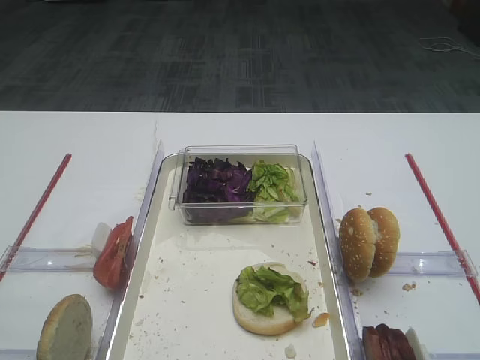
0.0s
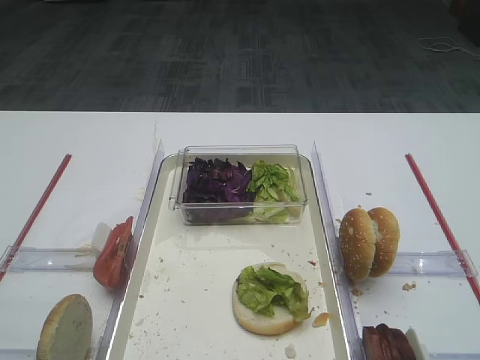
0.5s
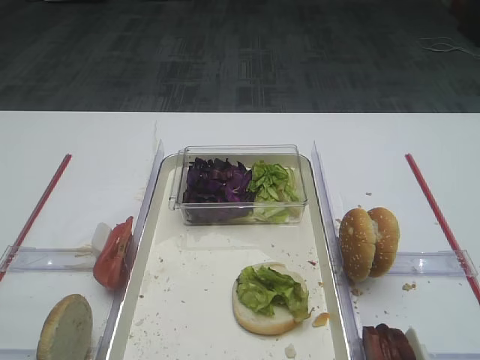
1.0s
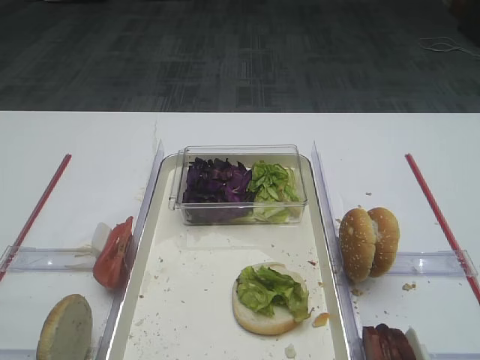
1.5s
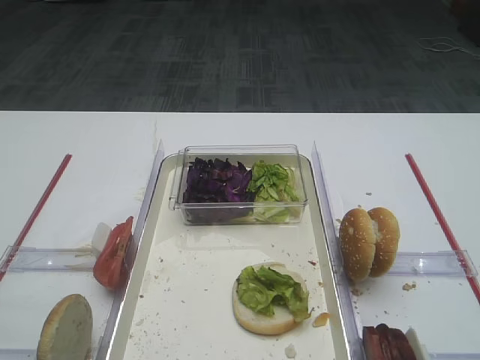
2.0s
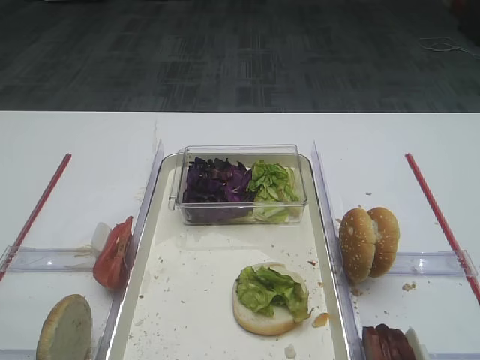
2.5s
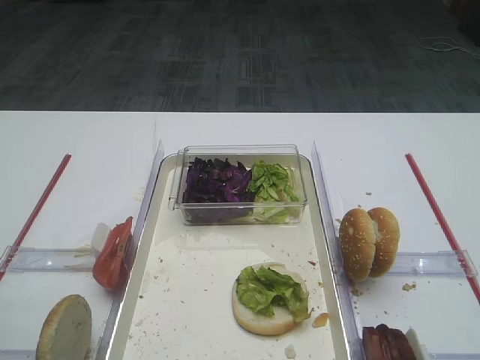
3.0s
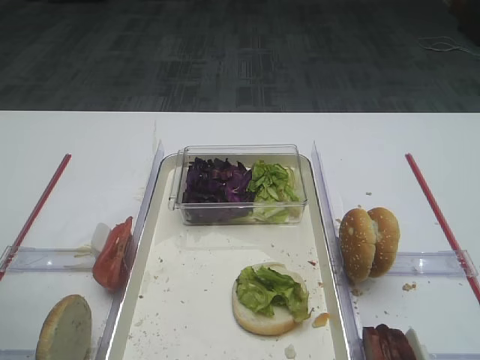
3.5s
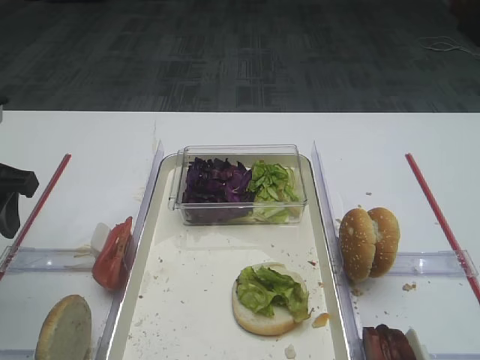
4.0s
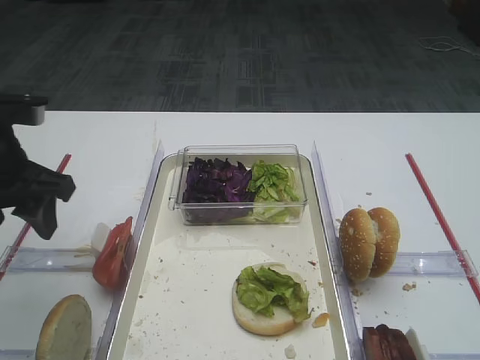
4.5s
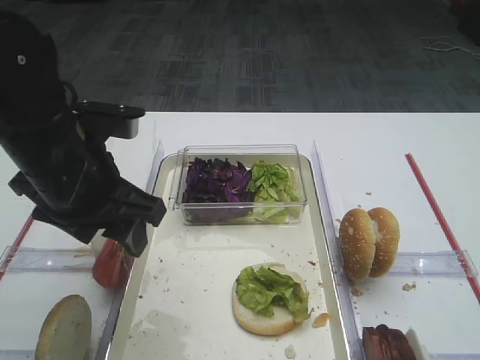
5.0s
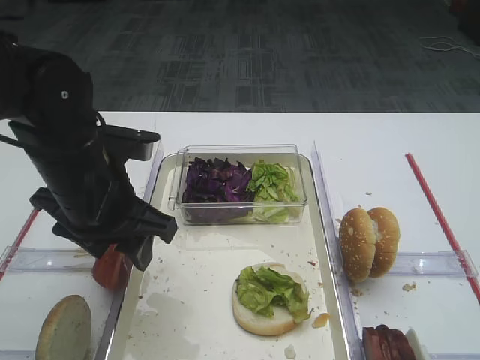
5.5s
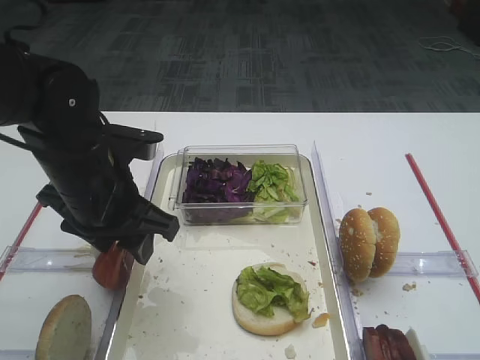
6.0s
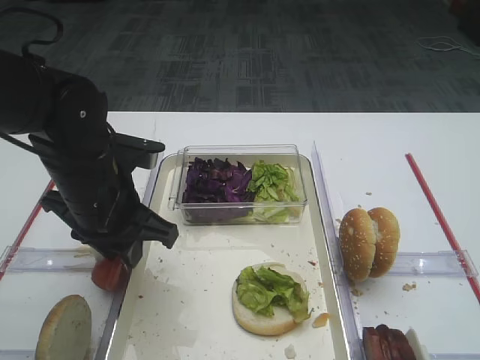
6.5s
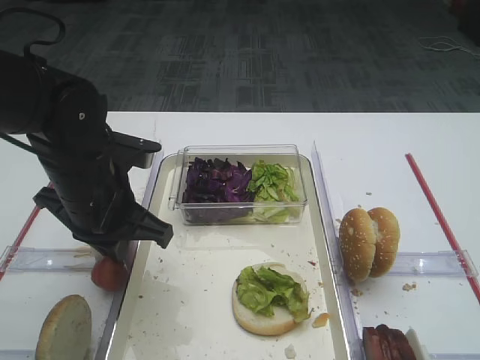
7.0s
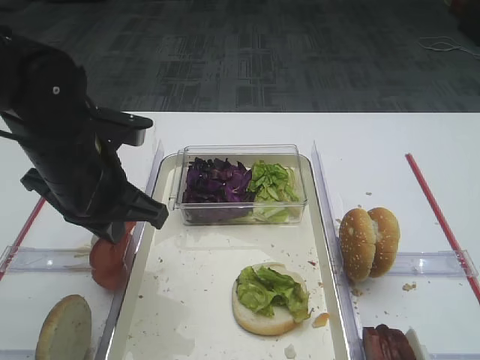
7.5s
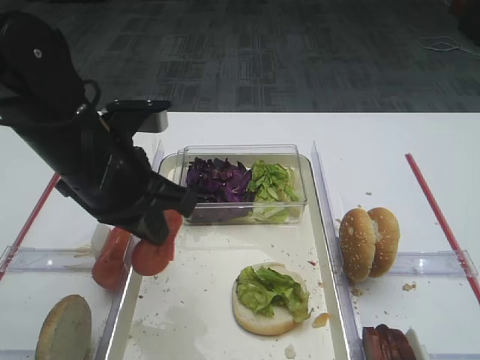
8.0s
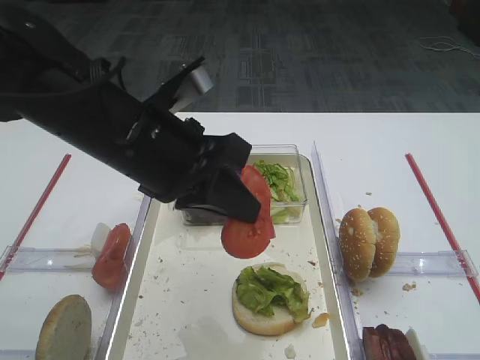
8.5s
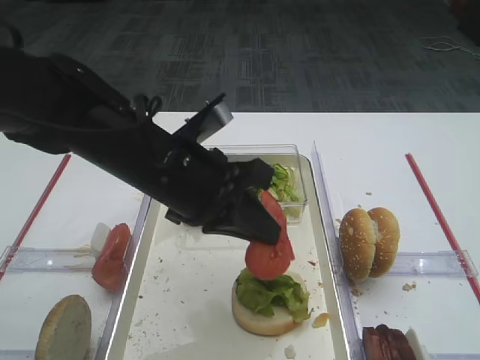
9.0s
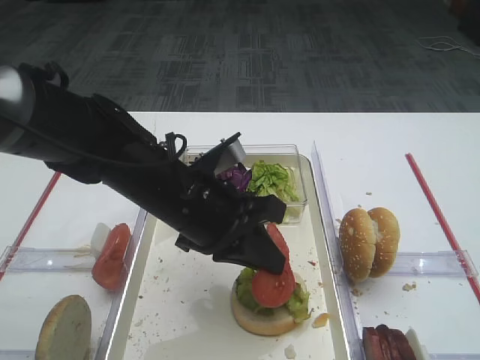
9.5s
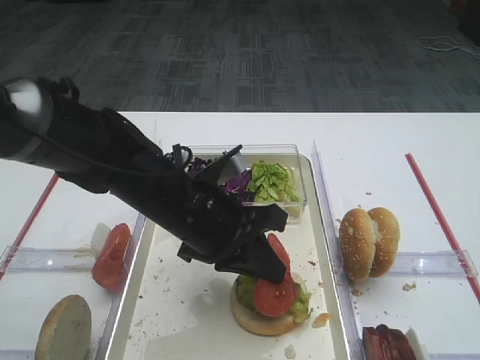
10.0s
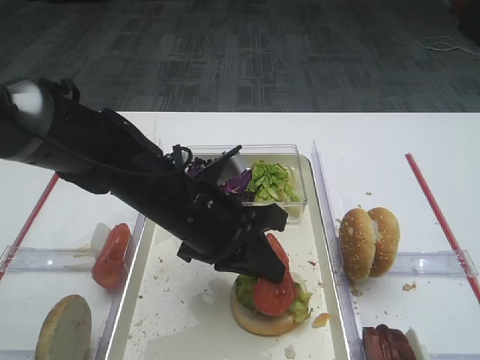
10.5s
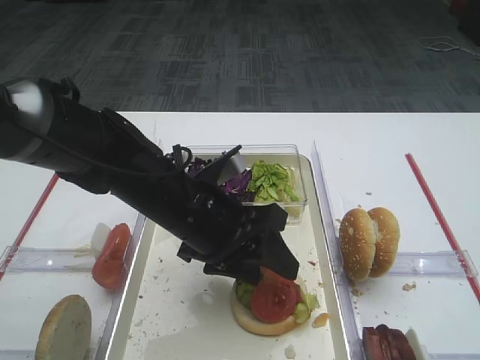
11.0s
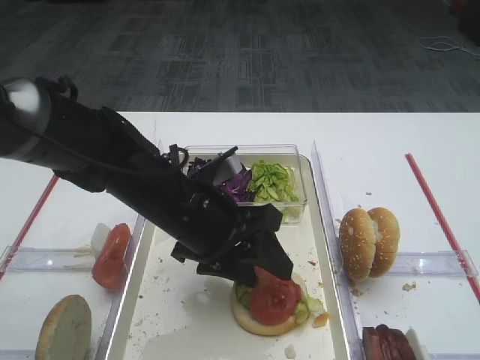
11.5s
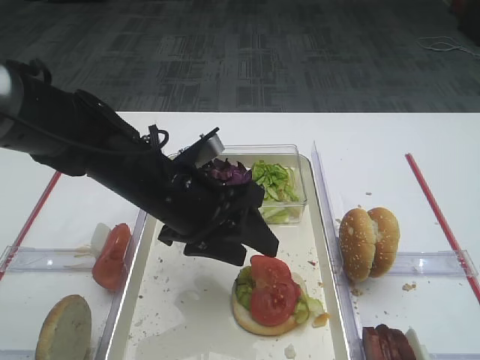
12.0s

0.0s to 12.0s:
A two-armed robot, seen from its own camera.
Step, 0.0s to 7.5s: Pick up the tomato slice with the left gripper.
Step, 8.0s to 12.0s: Place the tomato slice on the lettuce leaf with the left gripper.
2.0s to 4.0s: The left gripper moves forward, approximately 30 cm.
4.0s to 6.0s: The left gripper travels to the right by about 15 cm.
6.0s to 8.0s: The left gripper closes.
8.0s to 10.0s: The left gripper moves to the right and downward, approximately 10 cm.
10.0s to 12.0s: The left gripper opens.

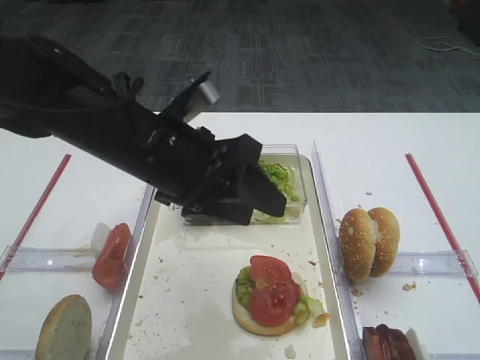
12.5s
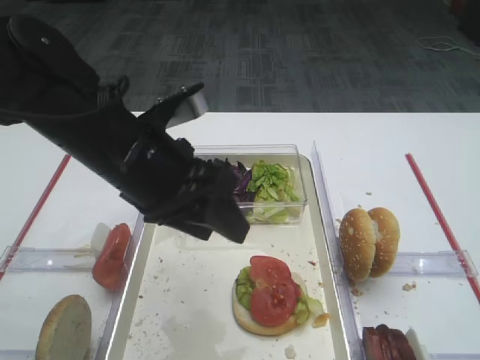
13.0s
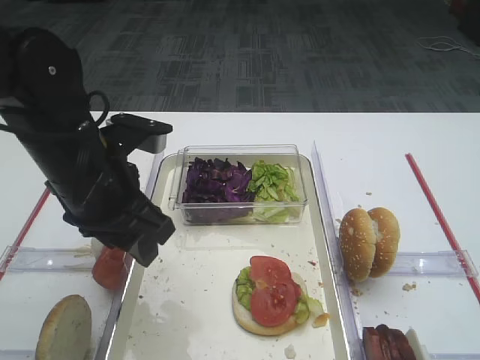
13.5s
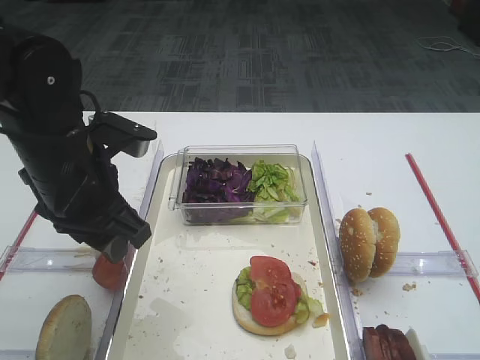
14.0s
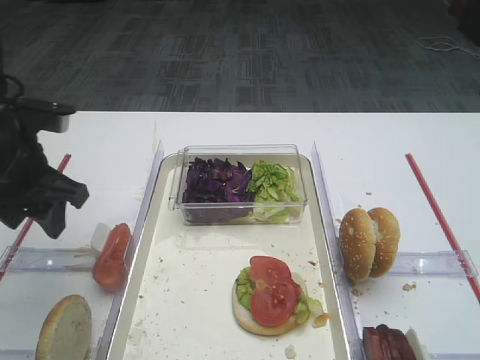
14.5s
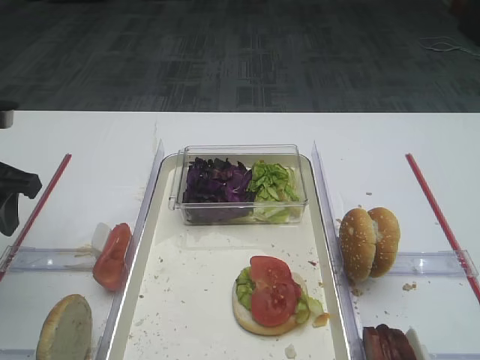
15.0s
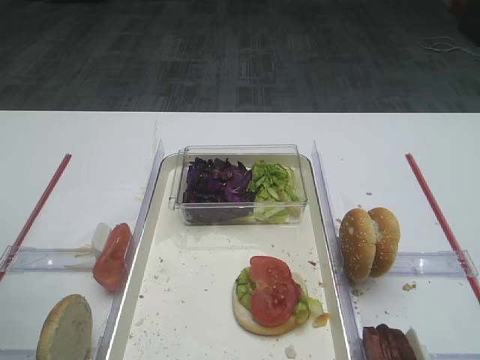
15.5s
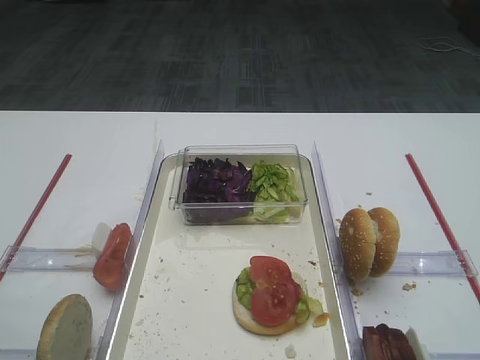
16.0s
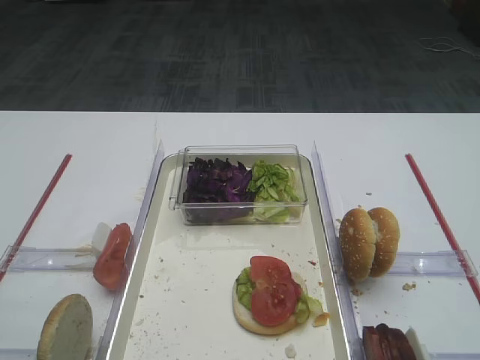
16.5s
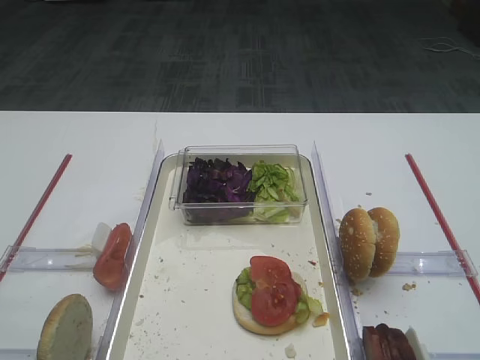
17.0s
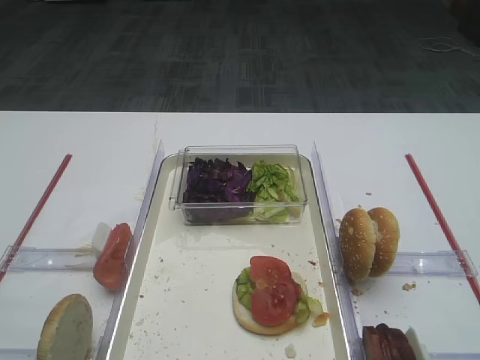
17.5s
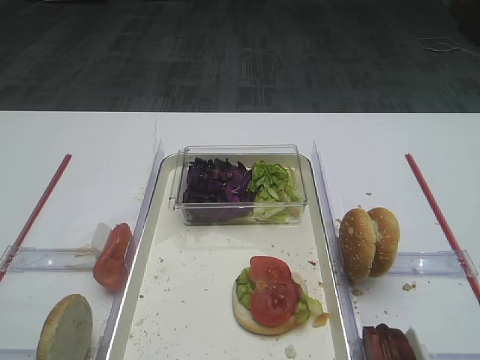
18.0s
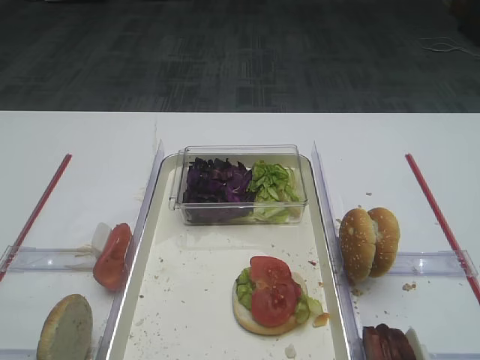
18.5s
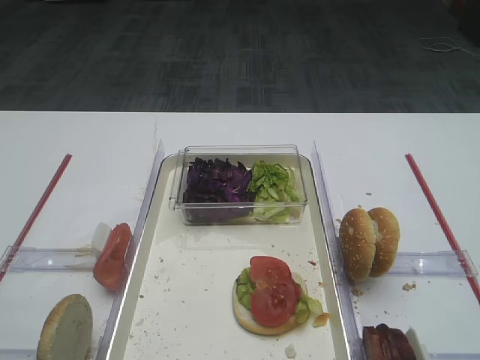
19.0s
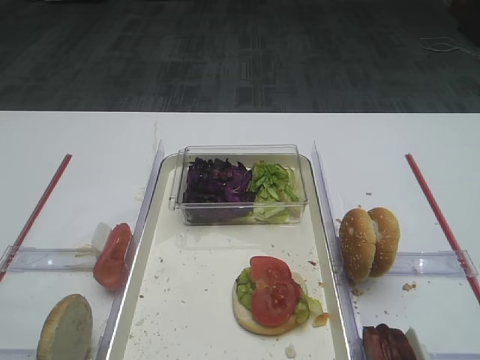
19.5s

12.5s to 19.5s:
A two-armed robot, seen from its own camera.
12.5s to 14.5s: The left gripper goes about 15 cm to the left.
14.5s to 16.0s: The left gripper goes about 20 cm backward.
17.5s to 19.5s: Neither gripper changes place.

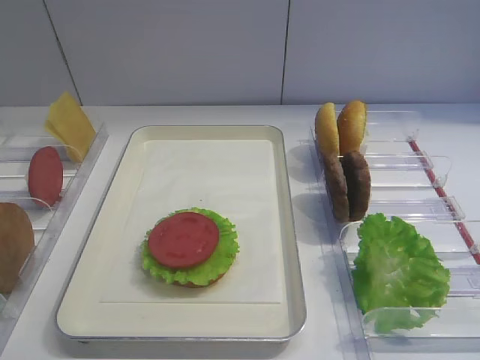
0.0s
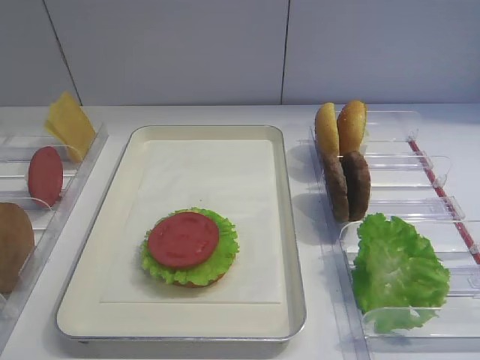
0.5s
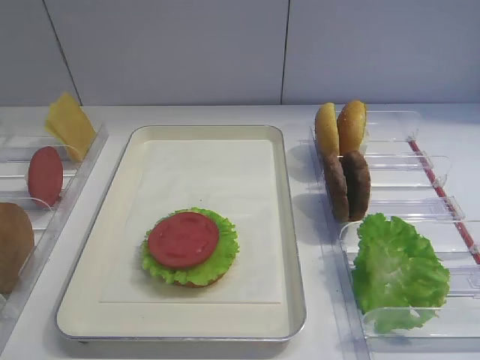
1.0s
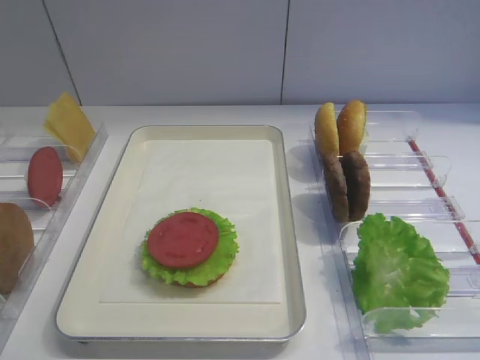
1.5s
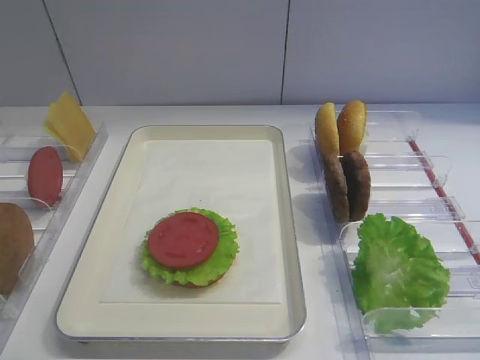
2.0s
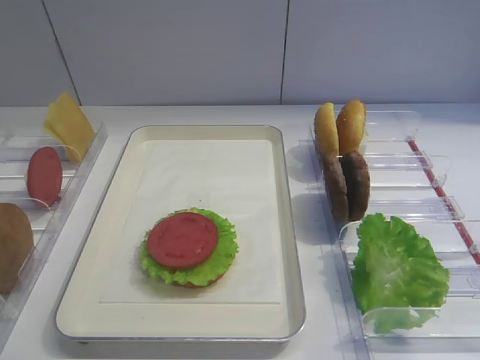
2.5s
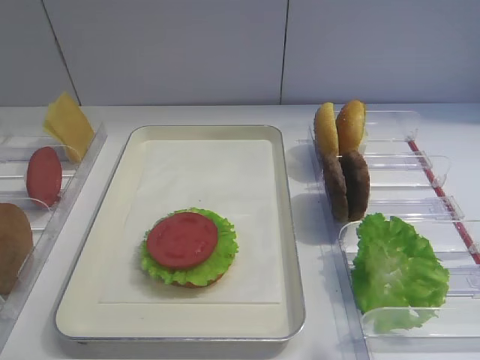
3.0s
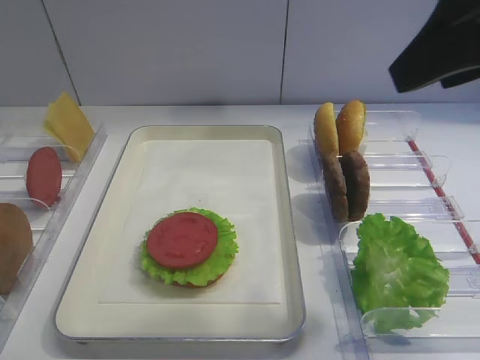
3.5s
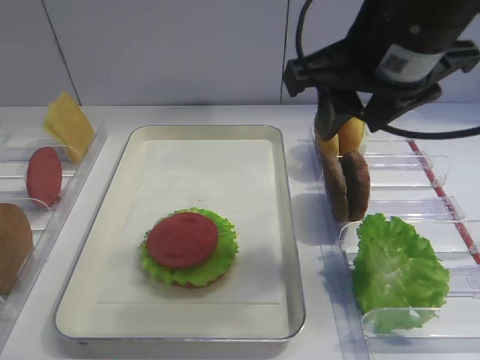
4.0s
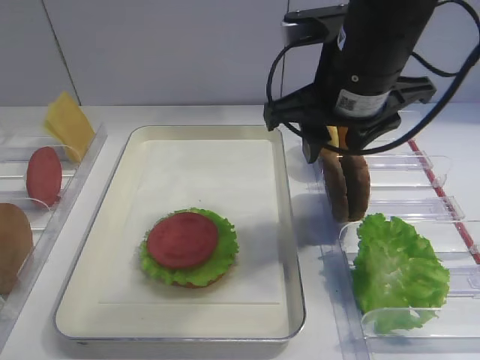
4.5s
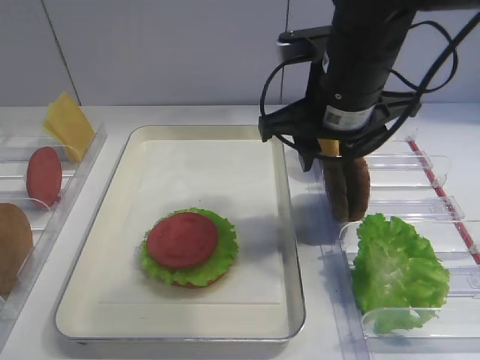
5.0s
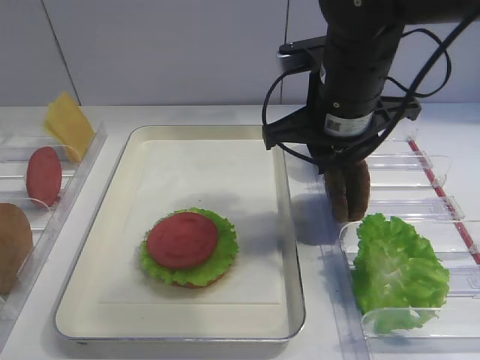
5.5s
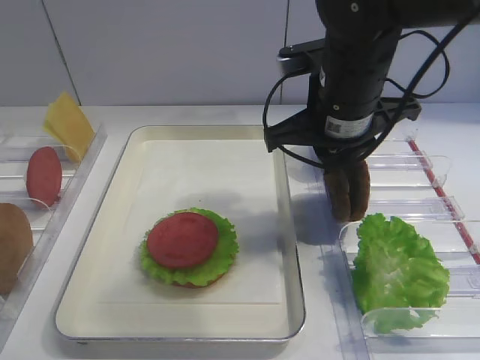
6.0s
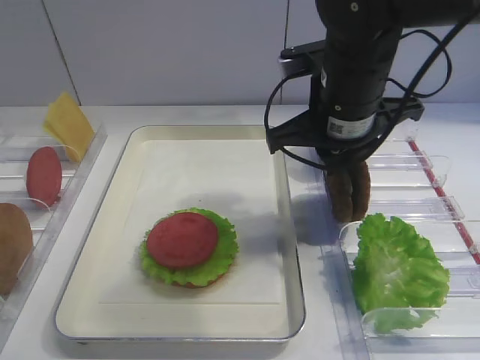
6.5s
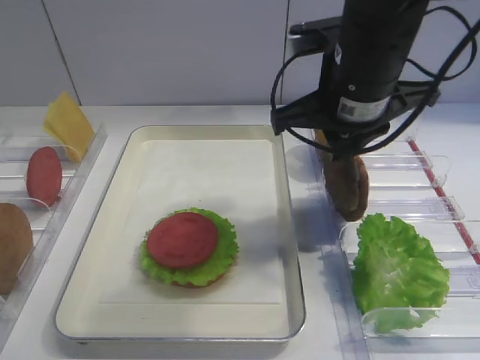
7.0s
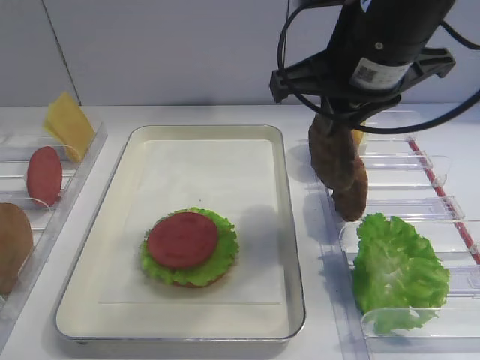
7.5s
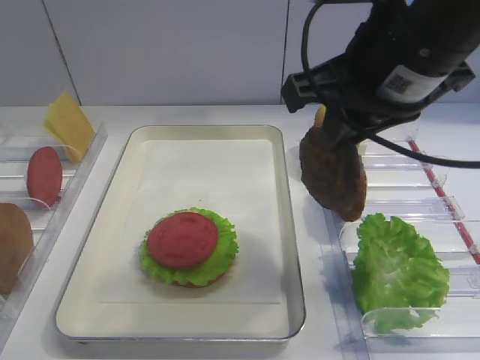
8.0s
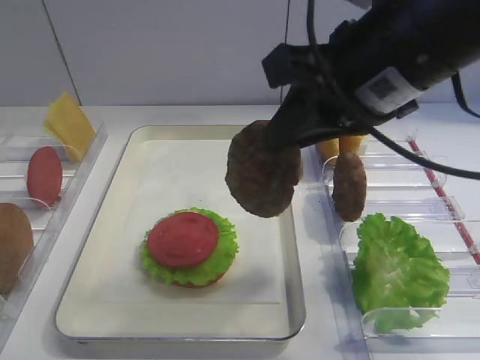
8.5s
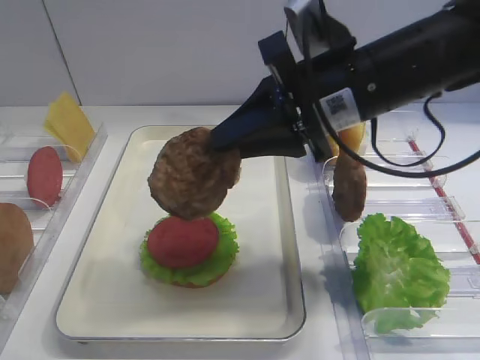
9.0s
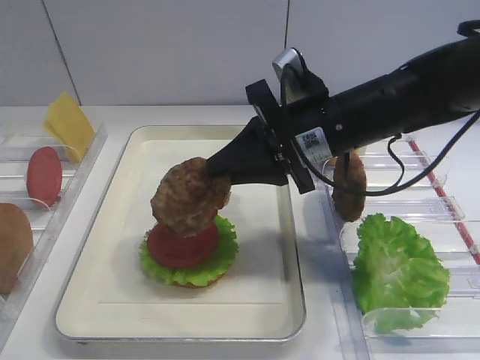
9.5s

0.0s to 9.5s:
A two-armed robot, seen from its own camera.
Step, 0.0s to 7.0s: Pick up the cutlet with the right gripper.
2.0s to 4.0s: The right gripper shifts approximately 30 cm forward and to the left.
4.0s to 5.5s: The right gripper shifts approximately 10 cm downward and forward.
5.5s to 7.5s: The right gripper travels upward by roughly 5 cm.
7.5s to 9.5s: The right gripper shifts approximately 10 cm downward.
